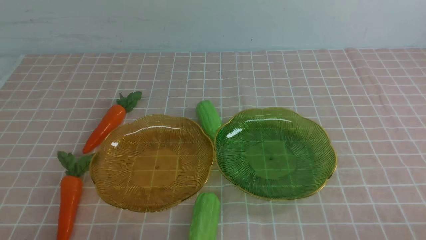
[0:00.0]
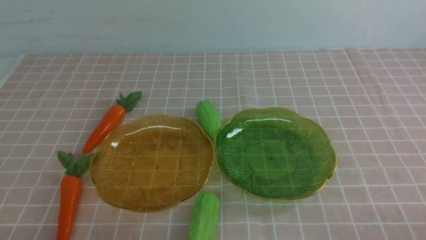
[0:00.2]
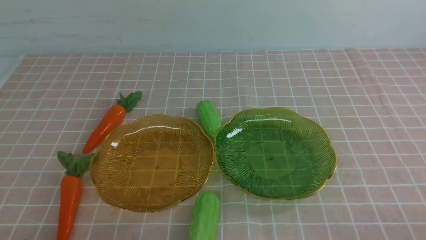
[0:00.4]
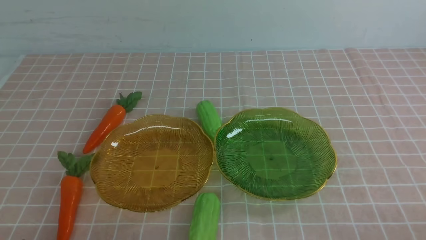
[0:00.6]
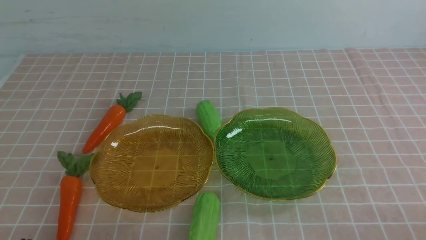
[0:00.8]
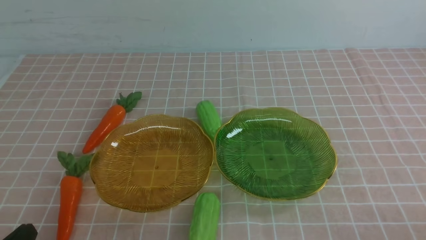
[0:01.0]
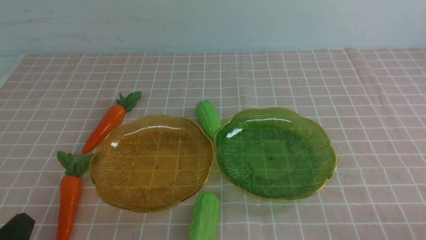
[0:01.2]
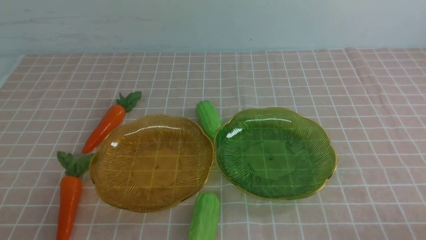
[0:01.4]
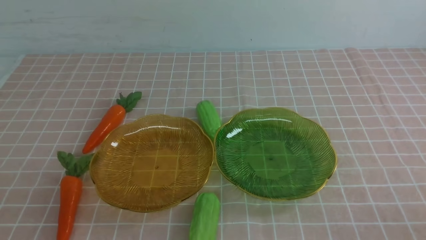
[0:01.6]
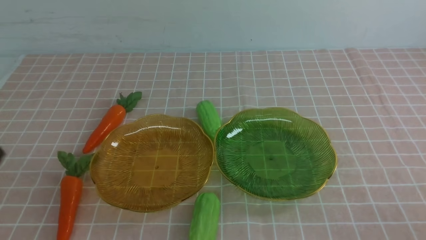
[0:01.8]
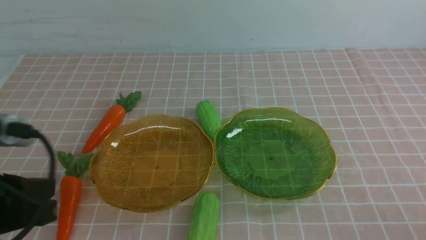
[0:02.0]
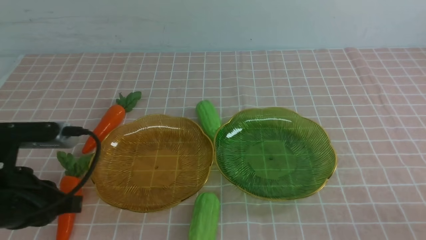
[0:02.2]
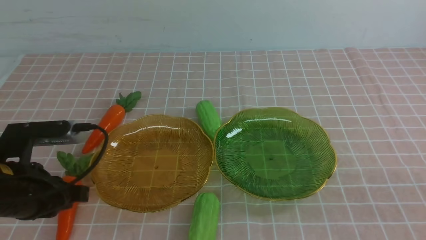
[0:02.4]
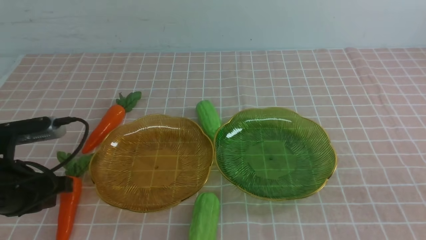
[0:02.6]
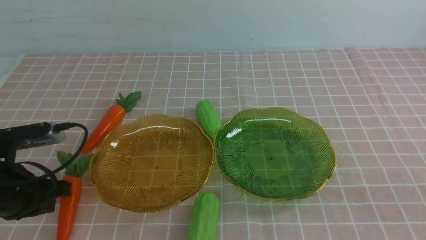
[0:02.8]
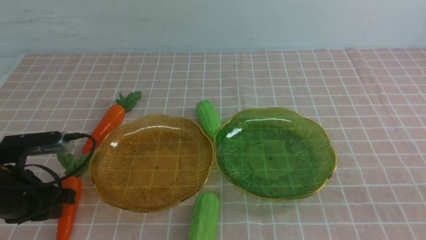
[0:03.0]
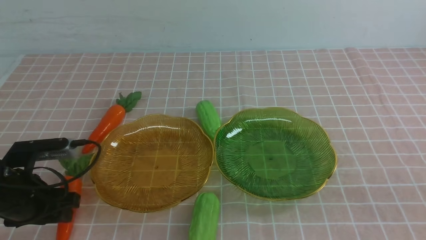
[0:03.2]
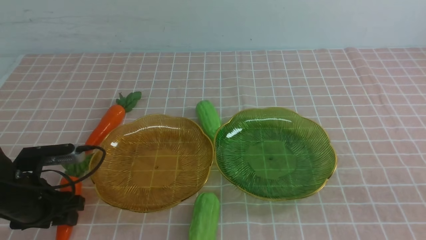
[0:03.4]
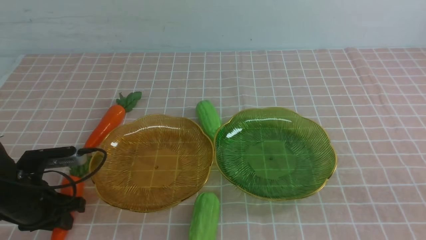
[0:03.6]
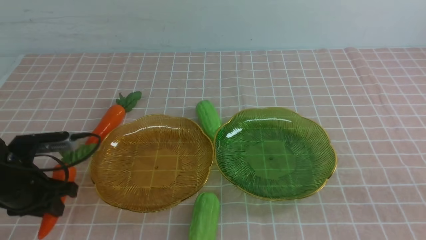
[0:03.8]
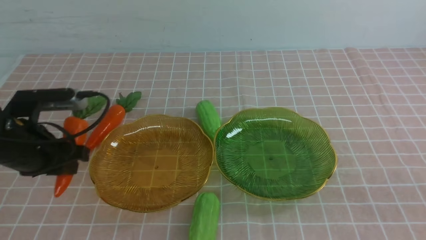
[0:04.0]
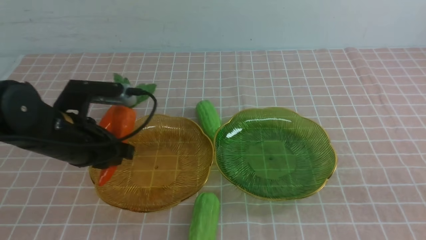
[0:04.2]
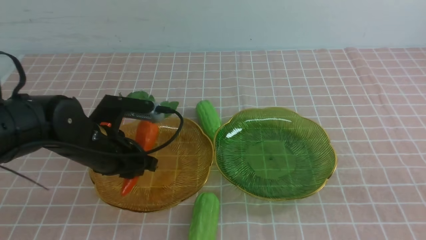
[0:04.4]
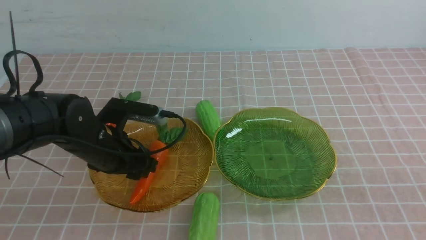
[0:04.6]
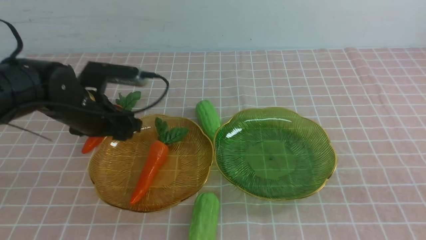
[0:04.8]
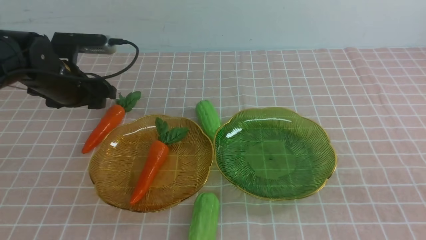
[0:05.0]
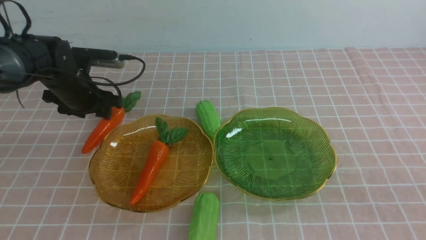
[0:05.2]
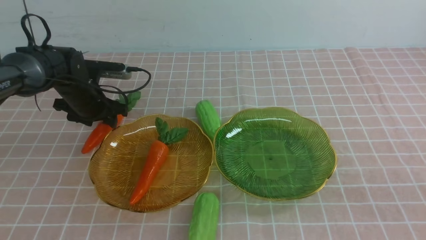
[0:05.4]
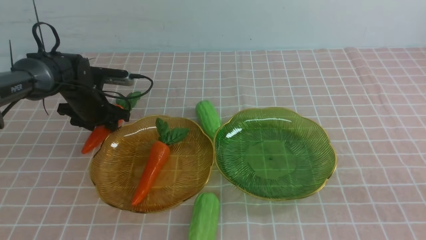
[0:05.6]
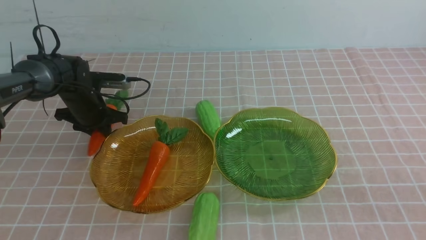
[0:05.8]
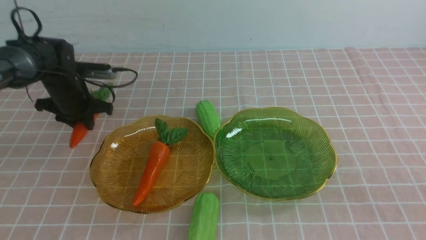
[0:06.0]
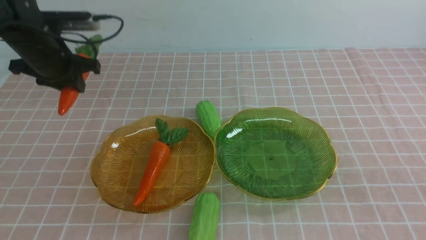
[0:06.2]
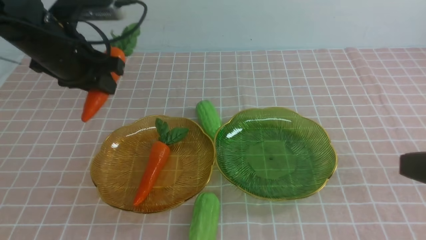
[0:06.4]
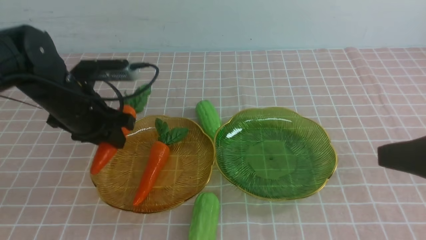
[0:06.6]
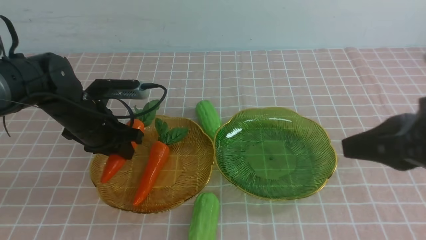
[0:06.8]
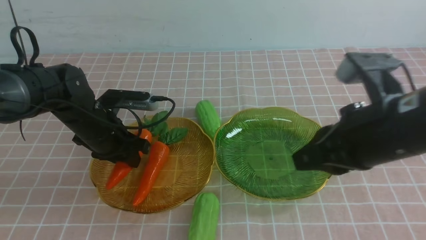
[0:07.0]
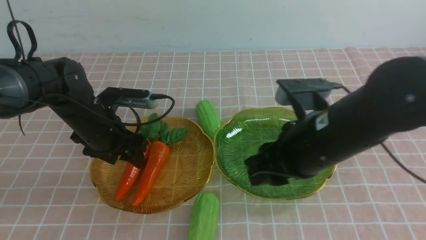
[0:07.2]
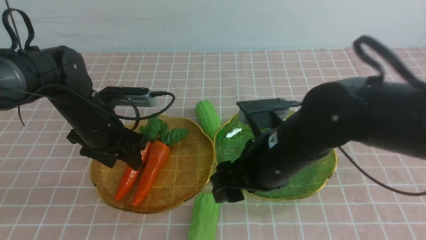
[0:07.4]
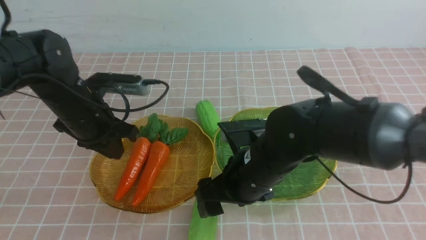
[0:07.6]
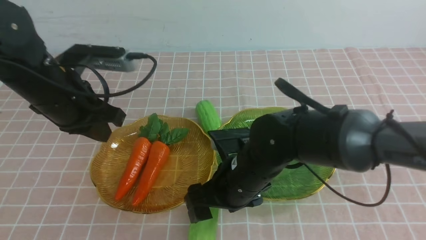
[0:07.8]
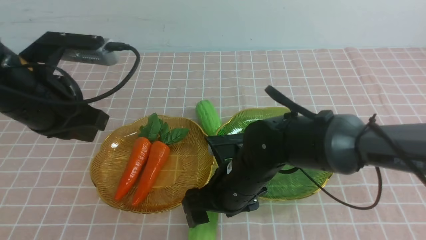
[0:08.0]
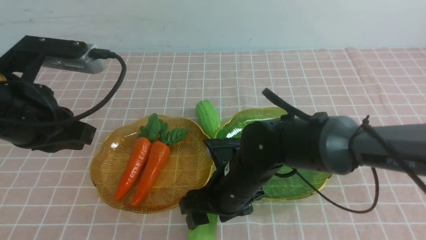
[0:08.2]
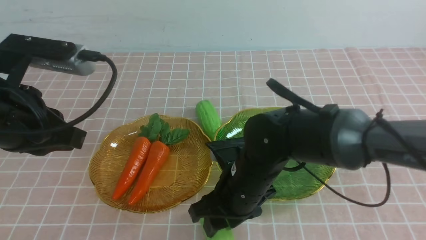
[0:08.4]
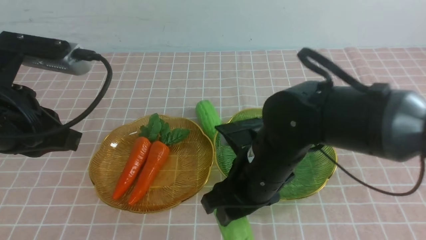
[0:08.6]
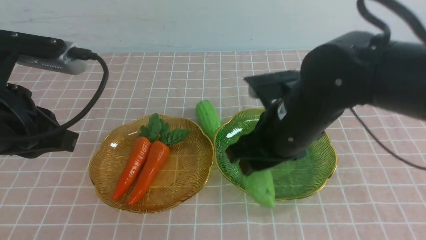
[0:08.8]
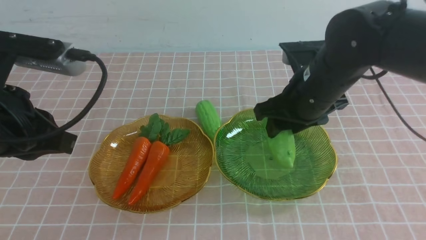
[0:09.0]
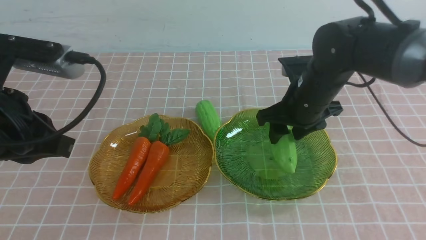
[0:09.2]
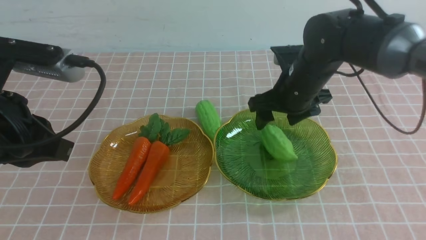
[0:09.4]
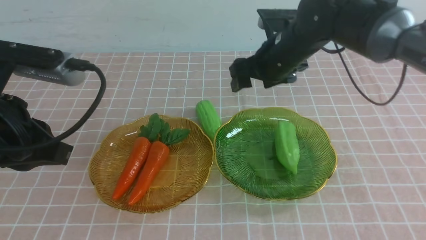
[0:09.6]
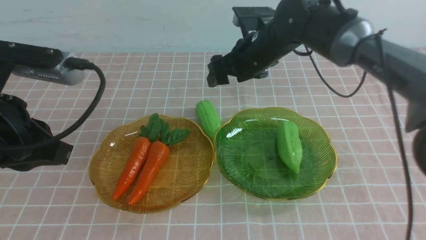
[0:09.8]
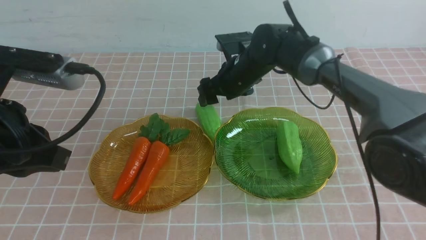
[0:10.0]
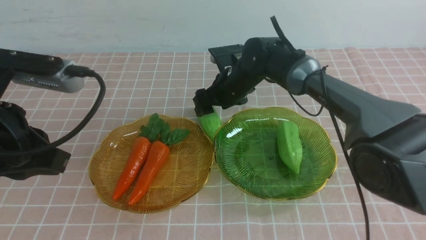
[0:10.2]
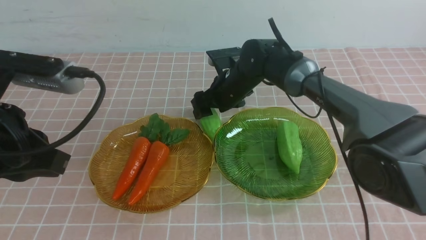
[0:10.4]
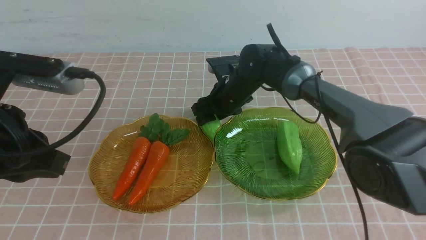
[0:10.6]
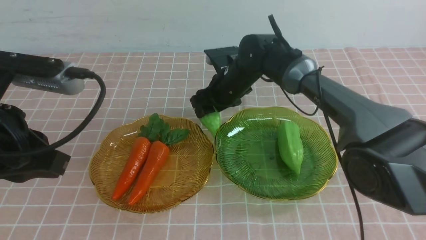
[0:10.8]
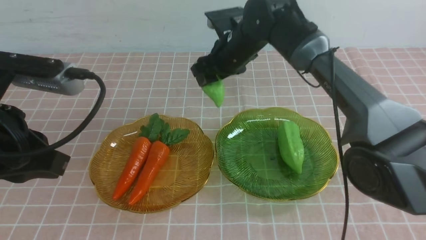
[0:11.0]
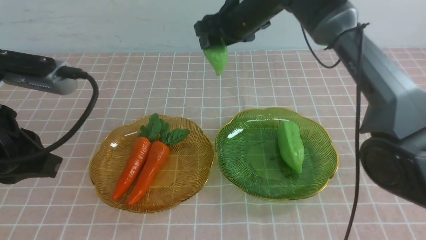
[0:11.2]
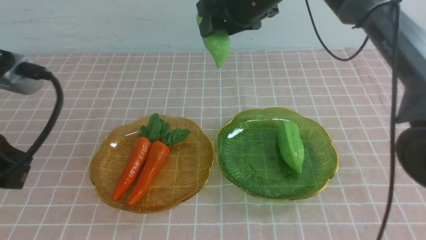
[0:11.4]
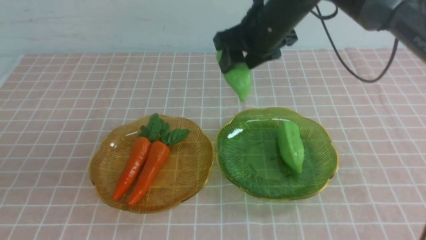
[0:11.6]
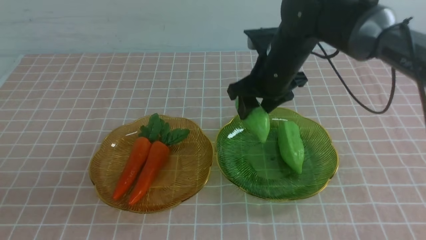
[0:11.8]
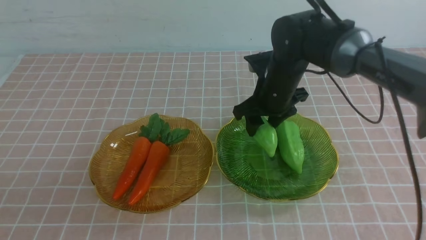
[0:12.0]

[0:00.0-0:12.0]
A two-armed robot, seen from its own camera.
Step, 0:00.0 to 0:07.2: use the left arm to grab a carrot and put it into the left plate.
0:01.6 to 0:03.0: The left gripper shifts about 20 cm forward and downward, and opens.
0:03.0 to 0:04.4: The left gripper moves forward, some 20 cm, and opens up.
0:04.4 to 0:06.0: The right gripper travels forward and to the left by roughly 10 cm. The left gripper goes up and down, approximately 15 cm each way, reversing 2 times, and closes.
0:06.0 to 0:07.6: The right gripper is displaced to the left and downward by about 25 cm, and opens its fingers, while the left gripper heads backward and upward, covering roughly 20 cm, and closes its fingers.
0:07.6 to 0:09.0: The right gripper shifts some 20 cm forward, and opens its fingers.
0:09.0 to 0:10.4: The right gripper goes downward and returns, some 10 cm each way.
0:10.4 to 0:12.0: The left gripper goes approximately 15 cm backward; the right gripper swings up and down, approximately 20 cm each way, with 2 reversals.

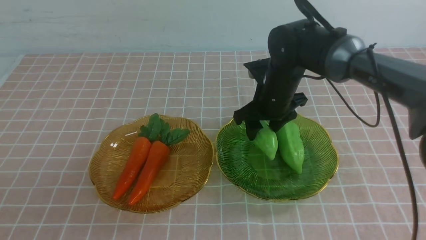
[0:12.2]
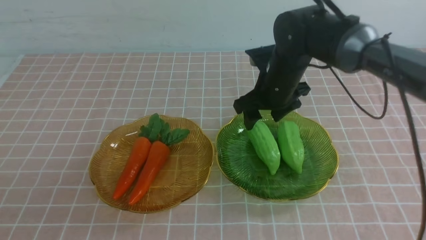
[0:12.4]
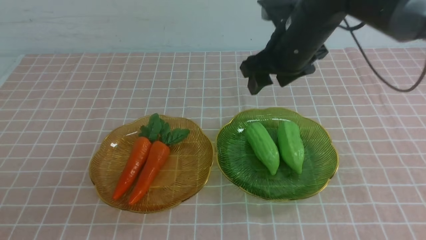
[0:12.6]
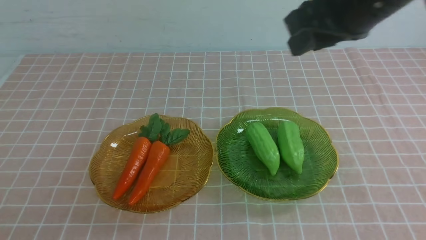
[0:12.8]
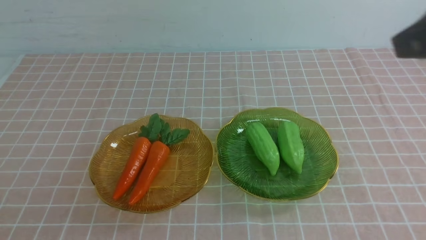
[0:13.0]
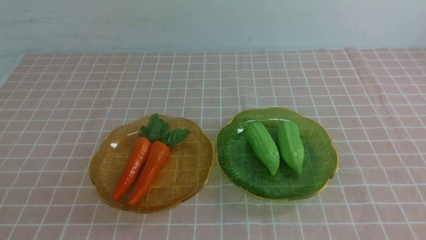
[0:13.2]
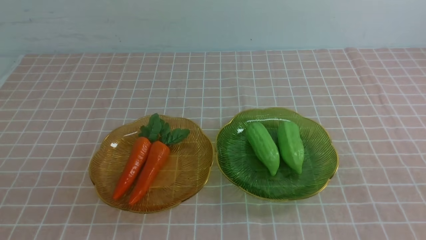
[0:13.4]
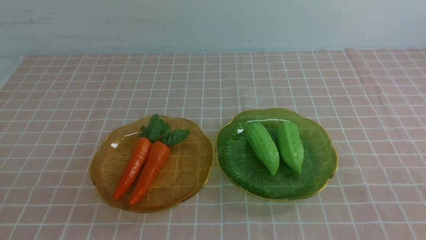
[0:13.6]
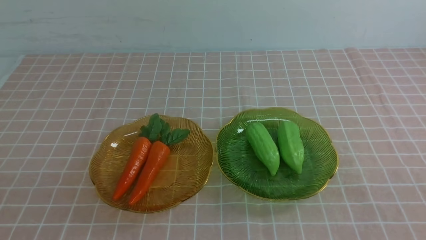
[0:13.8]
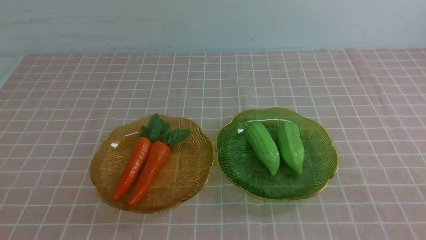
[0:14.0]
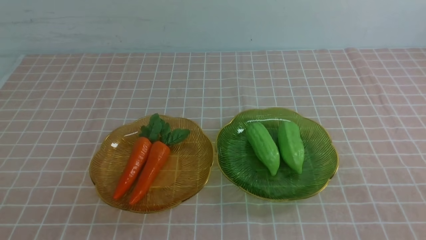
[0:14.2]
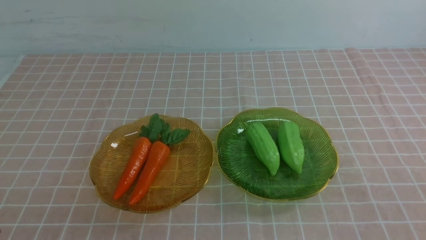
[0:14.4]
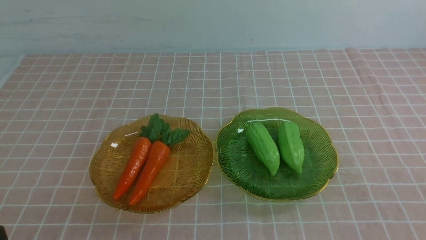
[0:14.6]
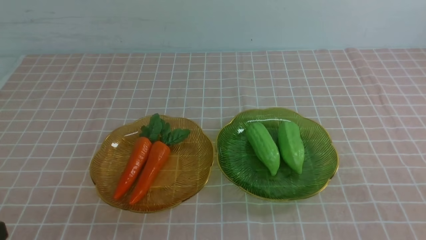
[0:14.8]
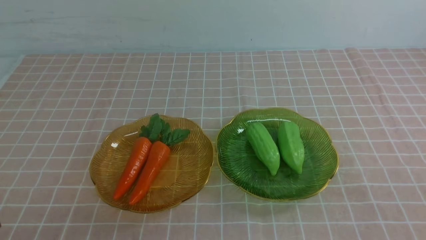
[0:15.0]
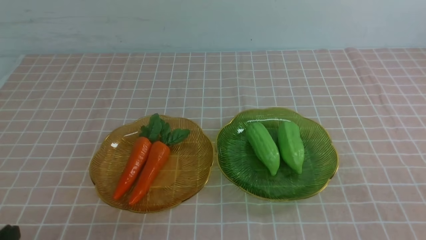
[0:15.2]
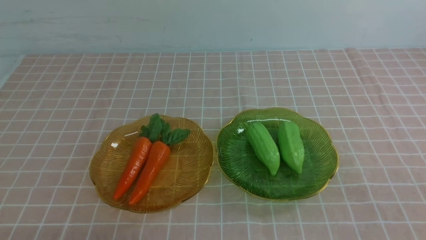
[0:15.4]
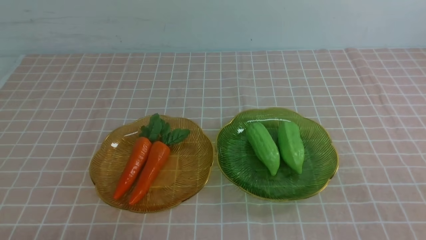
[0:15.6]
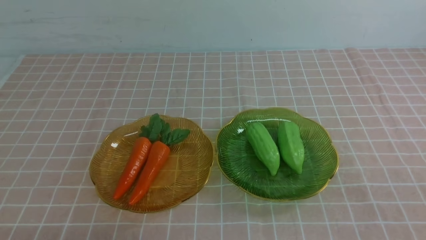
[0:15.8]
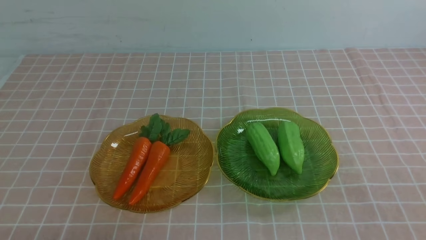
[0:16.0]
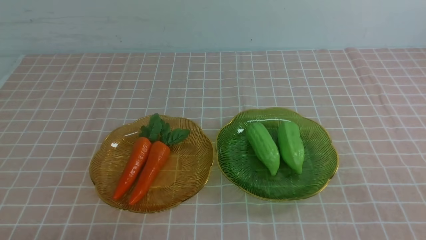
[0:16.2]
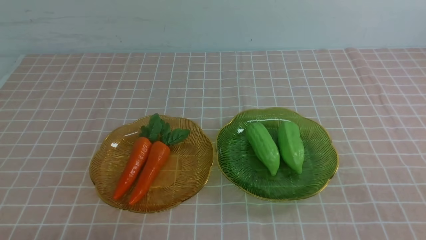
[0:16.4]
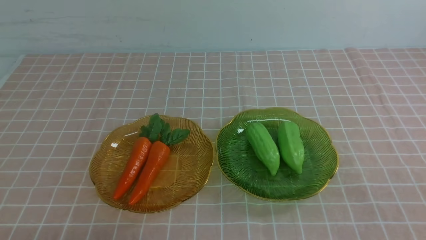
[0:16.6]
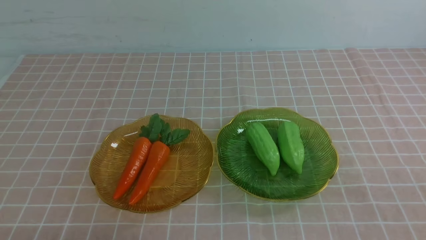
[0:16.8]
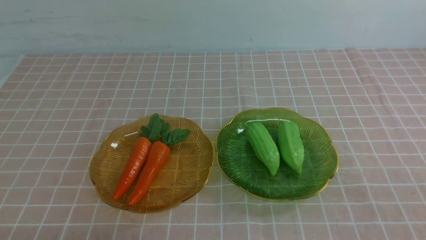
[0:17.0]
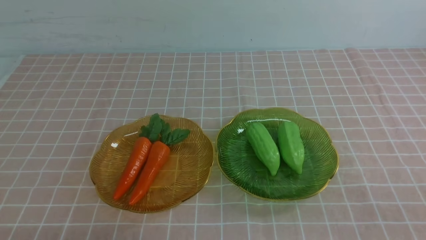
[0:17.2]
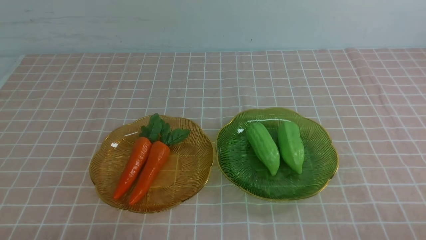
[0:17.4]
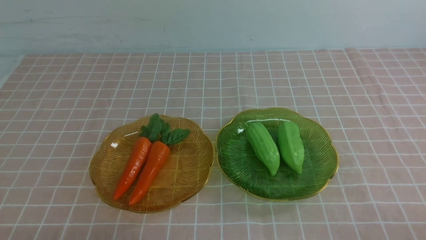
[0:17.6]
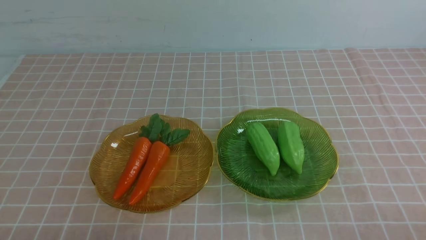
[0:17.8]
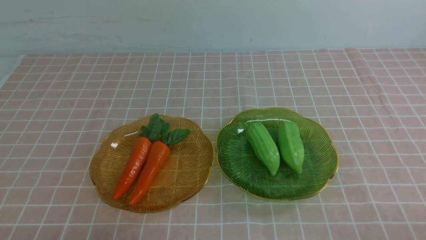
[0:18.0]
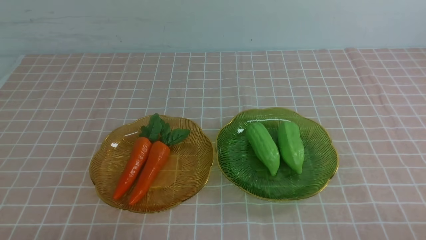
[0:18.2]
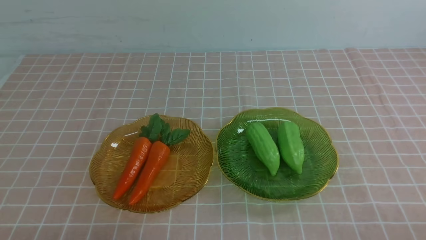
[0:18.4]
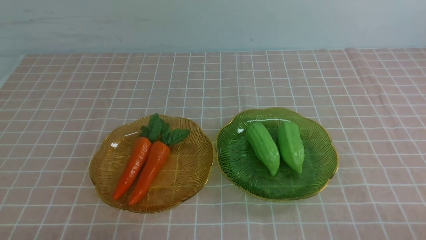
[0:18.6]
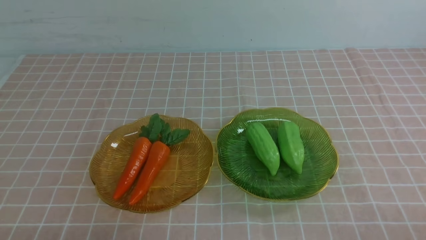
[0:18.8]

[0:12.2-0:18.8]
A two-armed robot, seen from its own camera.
0:12.2 to 0:13.8: The right gripper shifts about 20 cm backward, downward and to the right; the left gripper heads downward, covering approximately 5 cm.
0:17.2 to 0:18.8: Both grippers stay about where they are.
